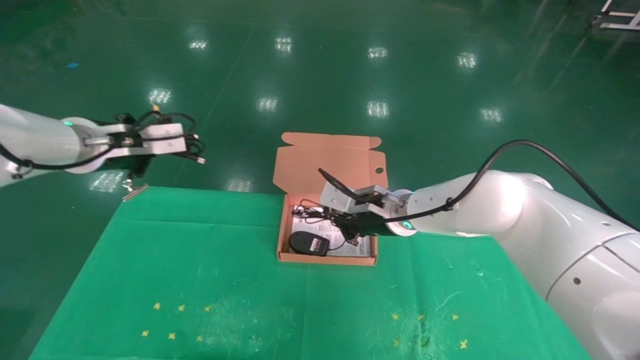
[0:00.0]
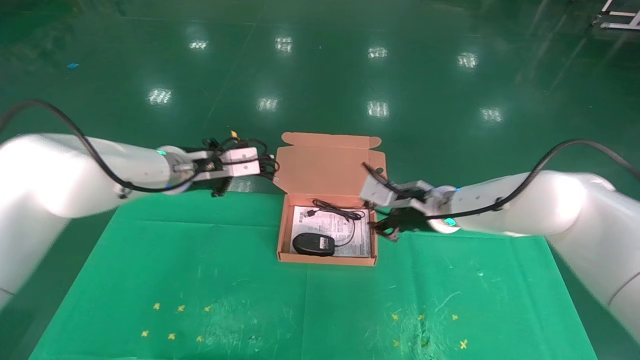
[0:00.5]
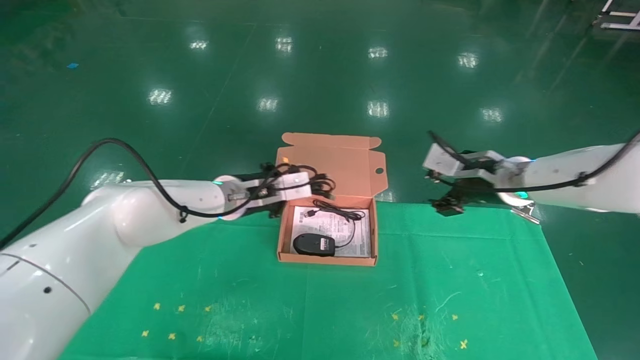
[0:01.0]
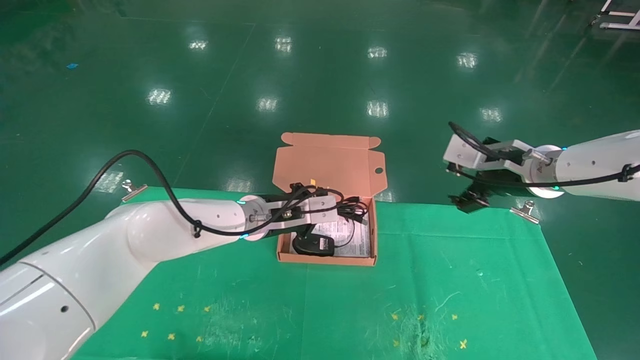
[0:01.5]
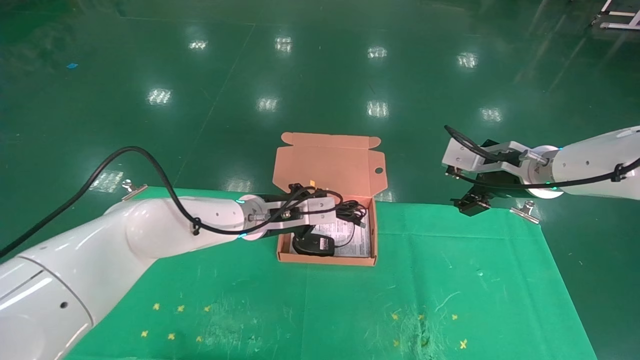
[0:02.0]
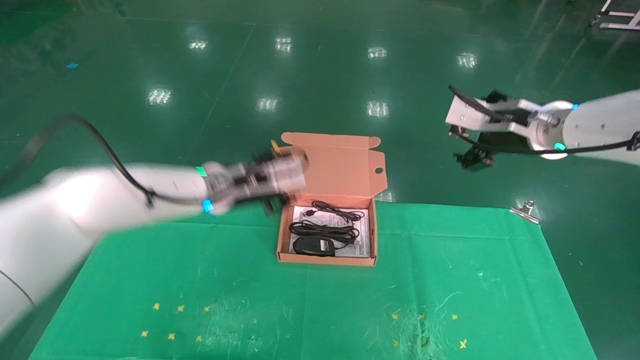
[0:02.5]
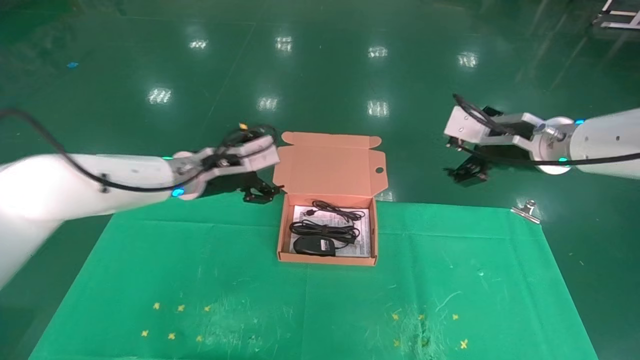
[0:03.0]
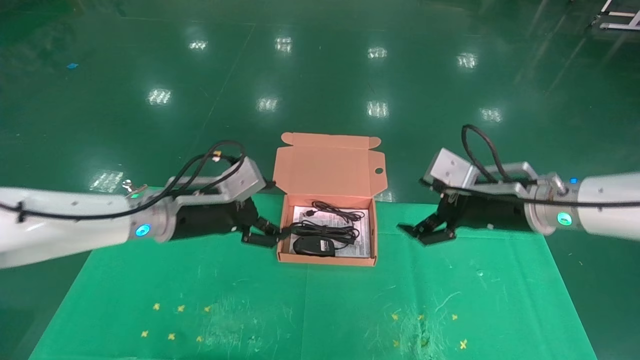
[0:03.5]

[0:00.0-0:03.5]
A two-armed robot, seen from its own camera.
Task of the whole recording: grasp data cable left put into box grasp mouse right put into box.
Step, 0:00.0 to 0:02.0: Place the mouse and power cord into the box.
0:00.0 to 0:02.0: The right gripper goes roughly 20 cm to the right and upward, and opens. The left gripper goes about 25 cm to the right and downward.
0:02.0 to 0:03.5: The right gripper heads backward, covering roughly 5 cm, while the left gripper is displaced to the left and backward by roughly 15 cm, and opens up.
